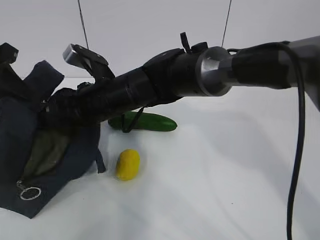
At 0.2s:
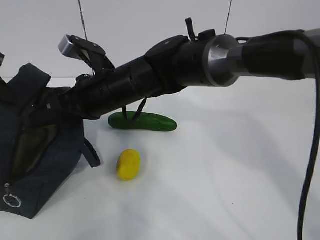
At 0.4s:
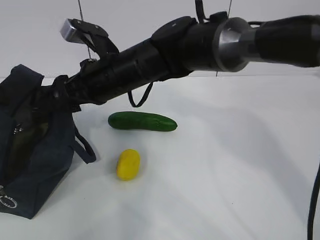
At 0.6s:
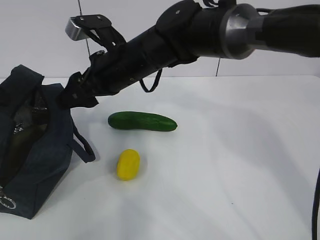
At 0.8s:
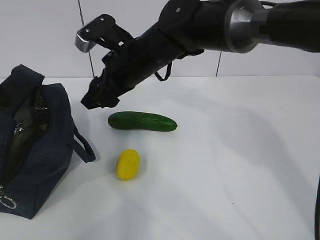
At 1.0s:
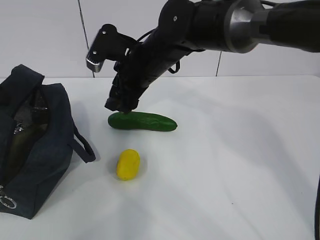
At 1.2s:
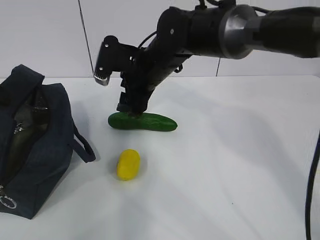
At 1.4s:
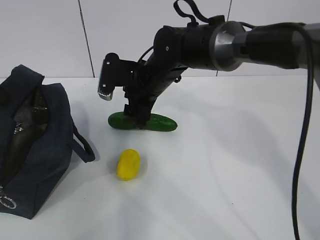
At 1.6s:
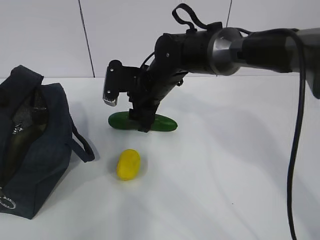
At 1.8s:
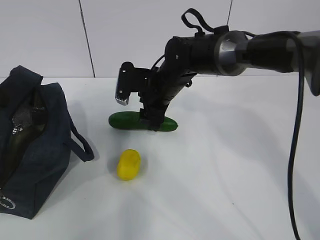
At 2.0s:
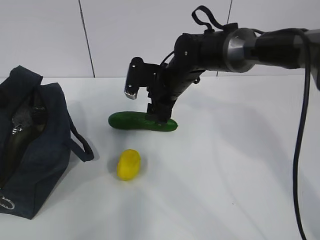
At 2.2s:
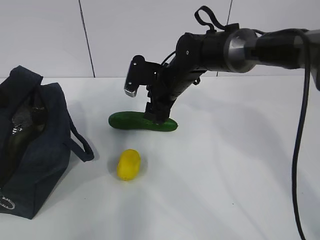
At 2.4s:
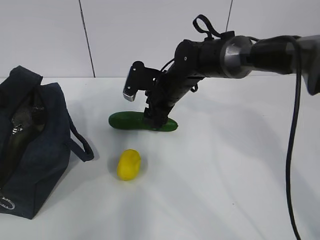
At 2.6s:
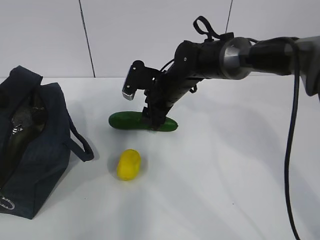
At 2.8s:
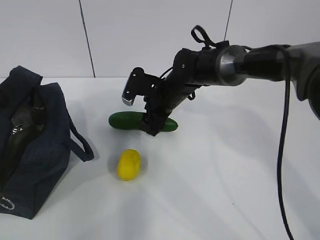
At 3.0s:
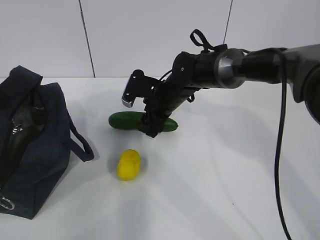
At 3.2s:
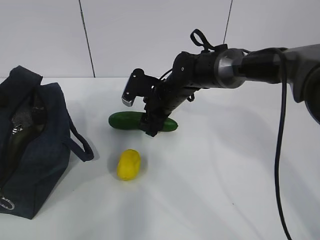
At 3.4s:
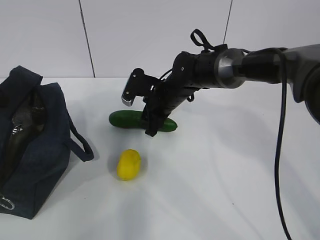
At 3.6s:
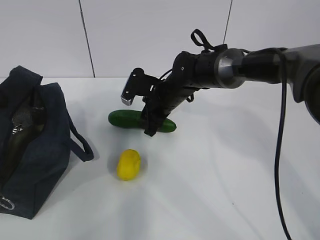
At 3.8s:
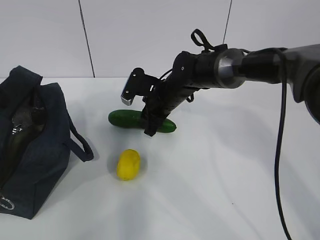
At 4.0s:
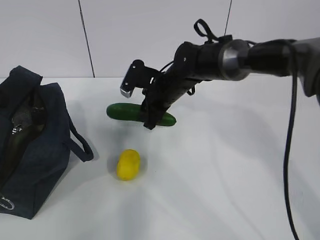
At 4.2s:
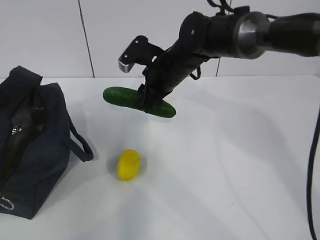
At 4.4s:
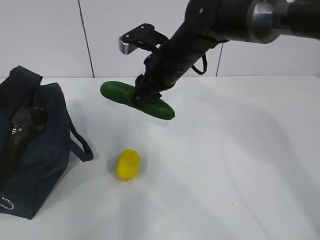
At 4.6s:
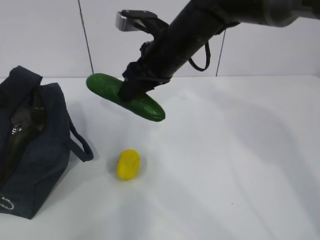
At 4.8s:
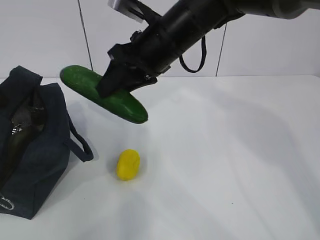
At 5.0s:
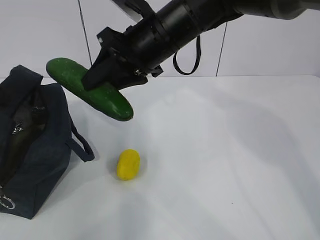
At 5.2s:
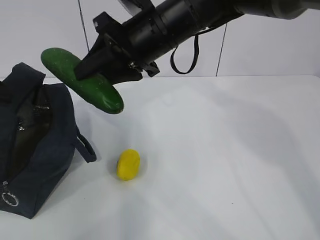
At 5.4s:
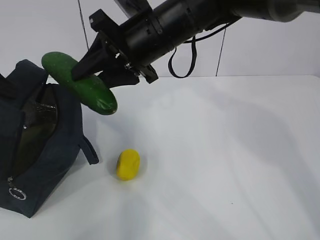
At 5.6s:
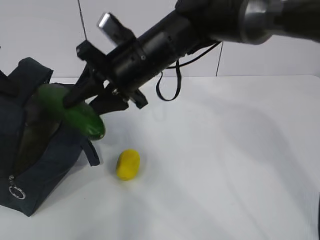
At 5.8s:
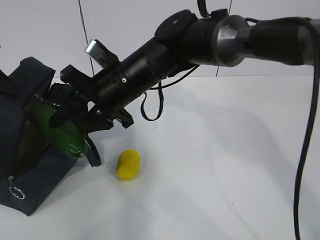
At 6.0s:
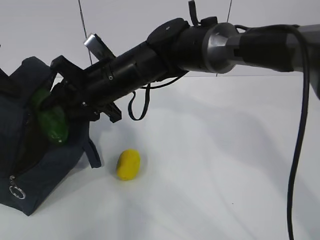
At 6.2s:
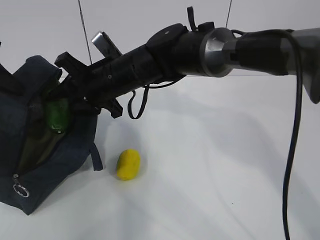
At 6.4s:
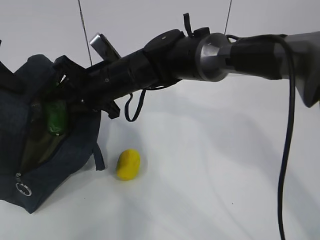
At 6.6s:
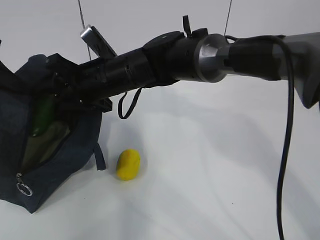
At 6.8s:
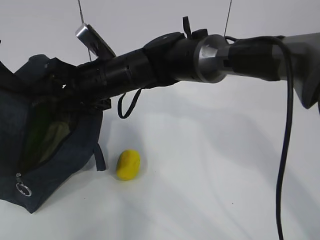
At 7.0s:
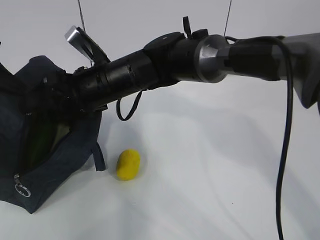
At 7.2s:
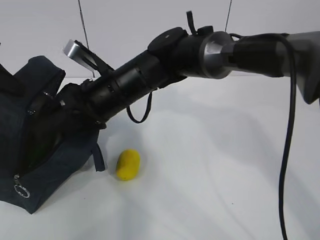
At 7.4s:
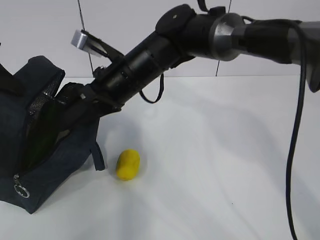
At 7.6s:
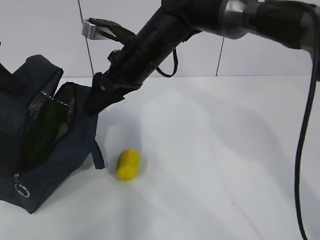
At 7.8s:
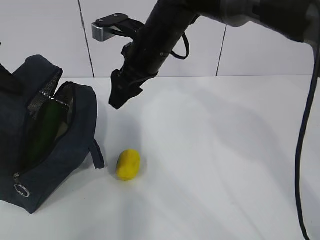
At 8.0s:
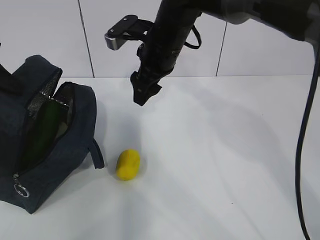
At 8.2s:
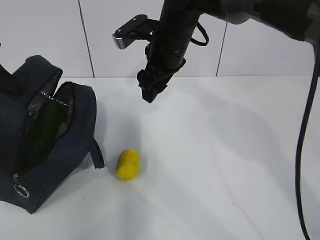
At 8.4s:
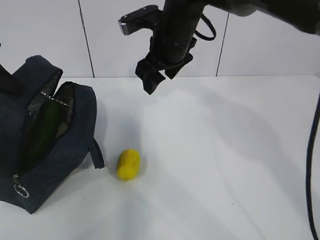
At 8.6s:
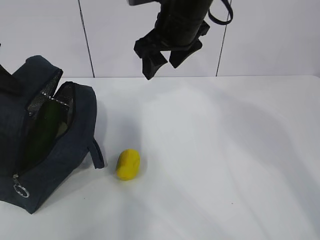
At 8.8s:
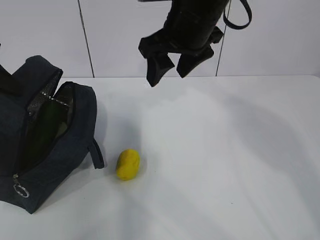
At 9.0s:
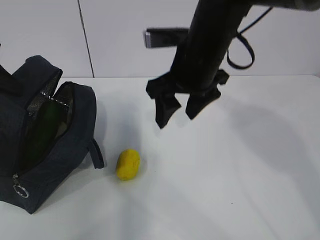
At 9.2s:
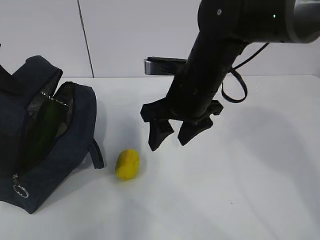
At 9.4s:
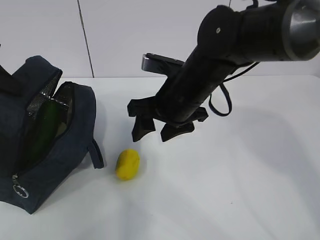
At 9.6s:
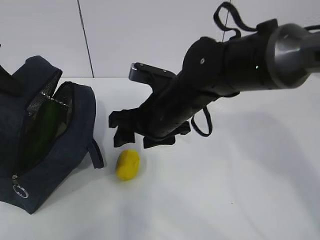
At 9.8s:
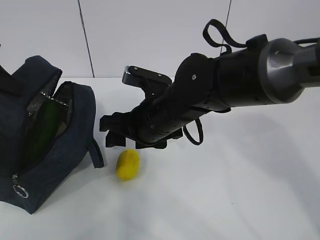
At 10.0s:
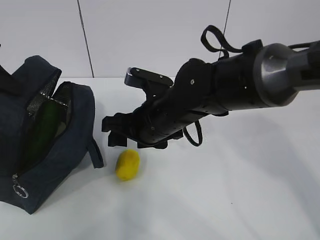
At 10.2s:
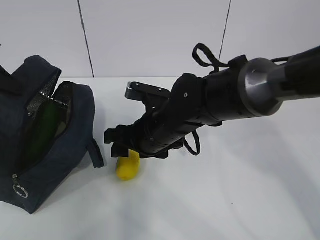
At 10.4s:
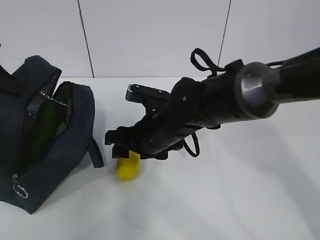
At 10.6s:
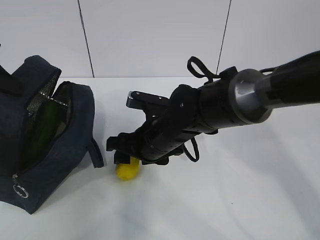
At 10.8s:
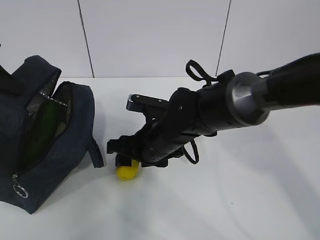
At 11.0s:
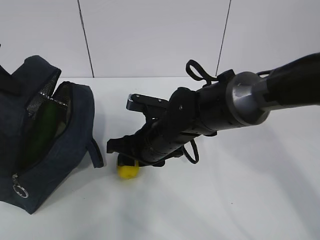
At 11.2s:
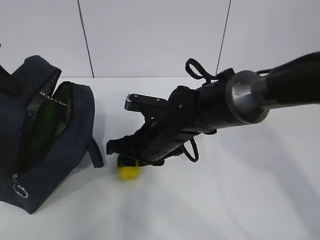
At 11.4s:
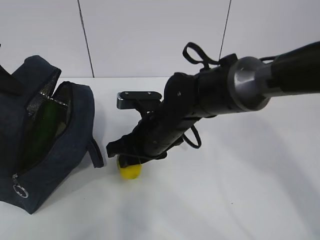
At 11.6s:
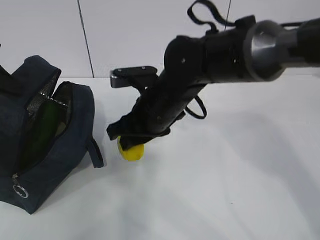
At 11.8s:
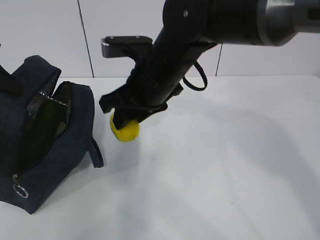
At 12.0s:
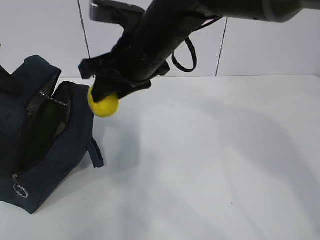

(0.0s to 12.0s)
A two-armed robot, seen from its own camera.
Step, 0.8s - 3.4s: Grasp the cucumber with the right gripper.
Step, 3.8s - 7.2s: Place the cucumber into the package with the right gripper.
Step, 7.4s - 11.0s: Grasp the lemon with the right gripper.
0.0s - 1.6s: The right gripper is displaced to the right and forward by about 10 cm.
1.6s - 3.0s: The right gripper is displaced downward by approximately 5 cm.
3.0s - 4.4s: The right gripper goes roughly 10 cm upward.
4.4s - 6.0s: The right gripper travels to the left by about 10 cm.
6.0s - 7.6s: The right gripper ends up some 5 cm from where it was, and opens.
7.6s - 9.0s: The right gripper is displaced to the right by about 5 cm.
9.0s - 10.4s: The right gripper is displaced downward and to the left by about 15 cm.
10.4s - 12.0s: The right gripper moves upward, about 15 cm.

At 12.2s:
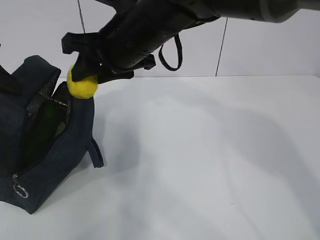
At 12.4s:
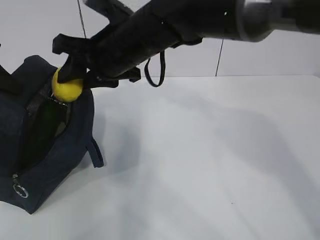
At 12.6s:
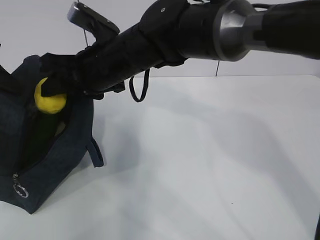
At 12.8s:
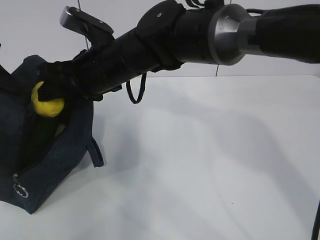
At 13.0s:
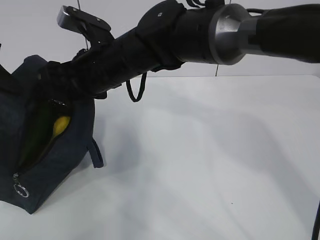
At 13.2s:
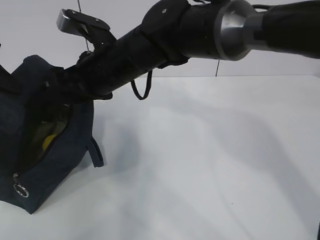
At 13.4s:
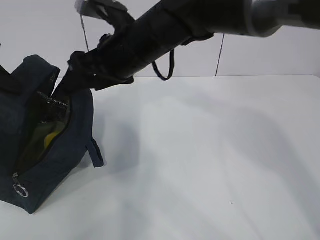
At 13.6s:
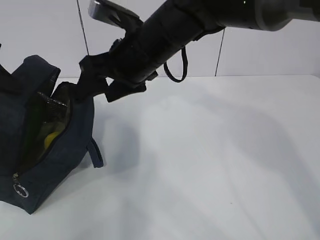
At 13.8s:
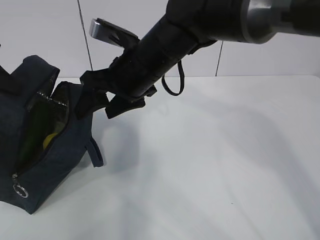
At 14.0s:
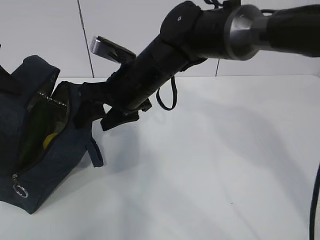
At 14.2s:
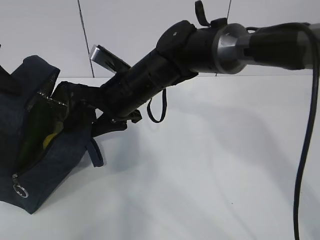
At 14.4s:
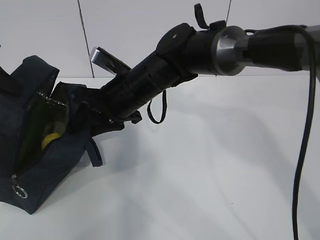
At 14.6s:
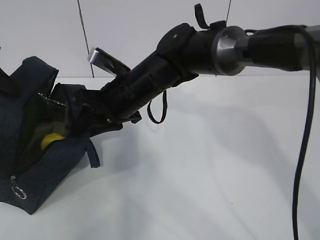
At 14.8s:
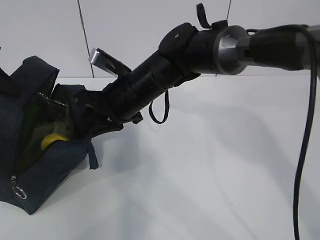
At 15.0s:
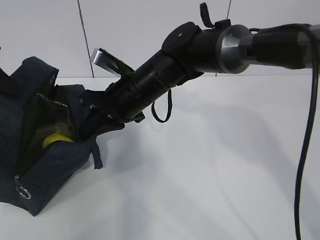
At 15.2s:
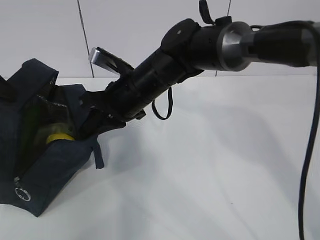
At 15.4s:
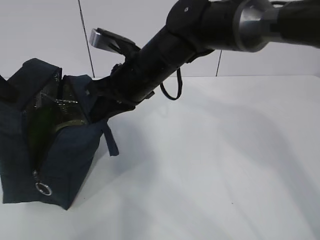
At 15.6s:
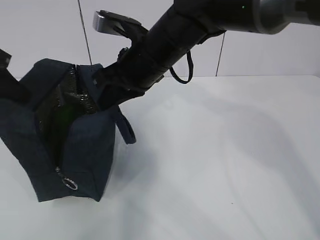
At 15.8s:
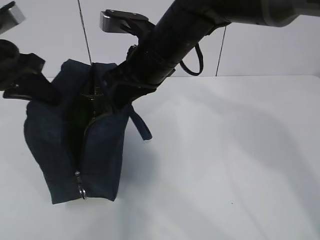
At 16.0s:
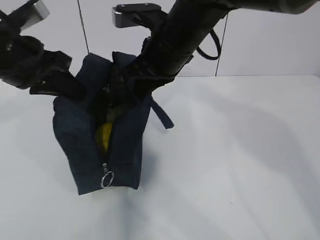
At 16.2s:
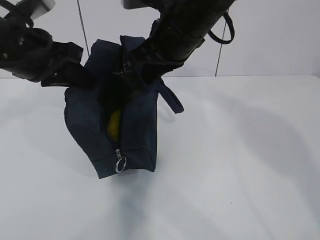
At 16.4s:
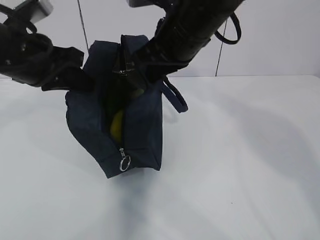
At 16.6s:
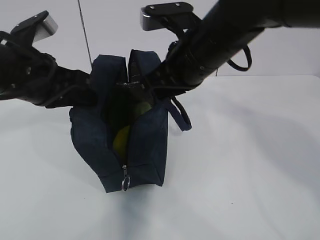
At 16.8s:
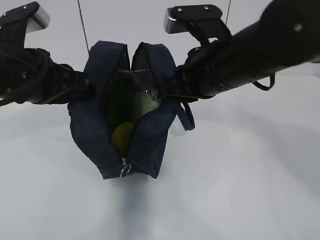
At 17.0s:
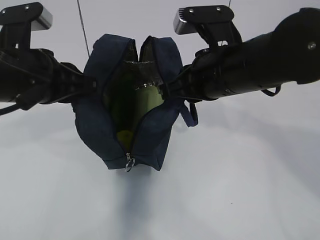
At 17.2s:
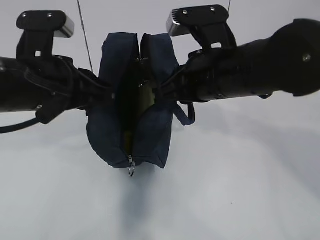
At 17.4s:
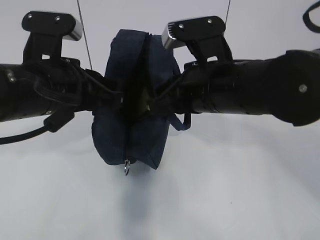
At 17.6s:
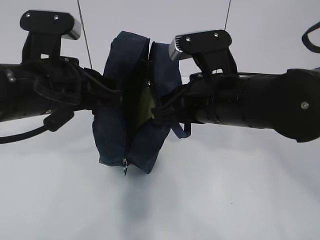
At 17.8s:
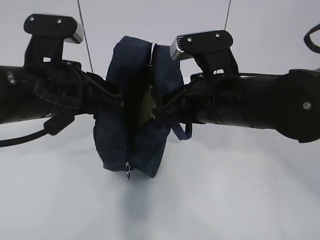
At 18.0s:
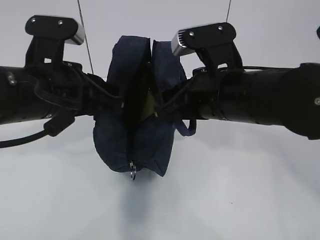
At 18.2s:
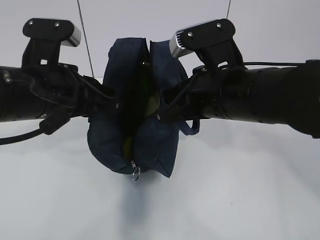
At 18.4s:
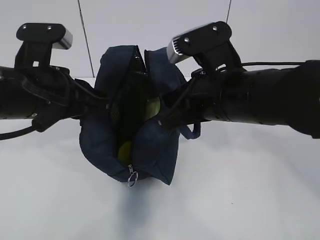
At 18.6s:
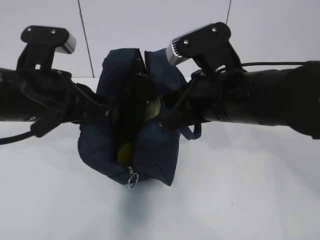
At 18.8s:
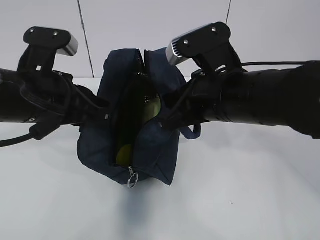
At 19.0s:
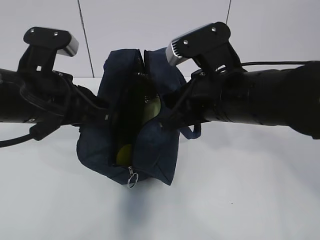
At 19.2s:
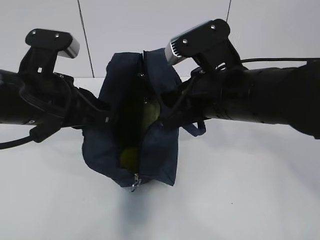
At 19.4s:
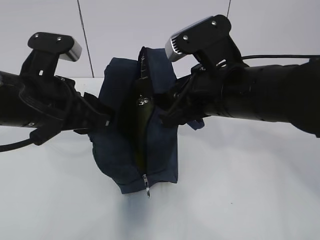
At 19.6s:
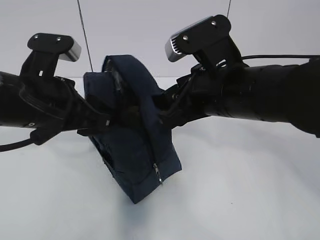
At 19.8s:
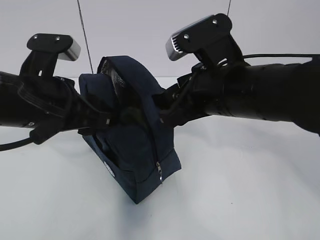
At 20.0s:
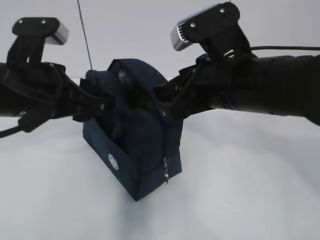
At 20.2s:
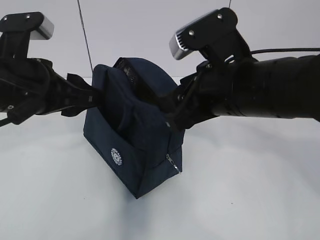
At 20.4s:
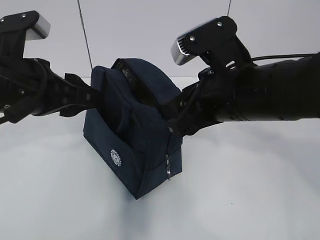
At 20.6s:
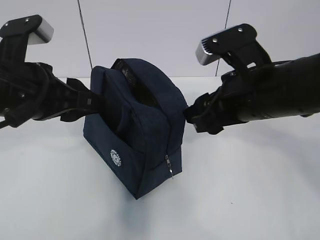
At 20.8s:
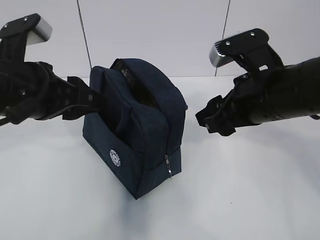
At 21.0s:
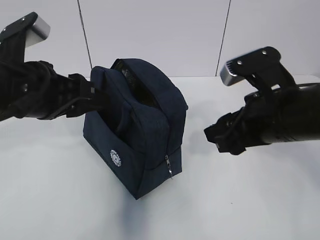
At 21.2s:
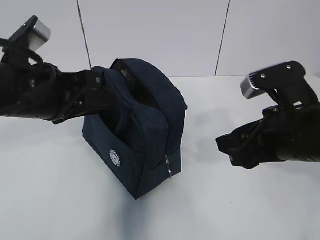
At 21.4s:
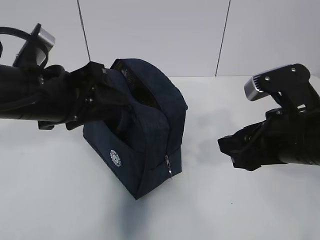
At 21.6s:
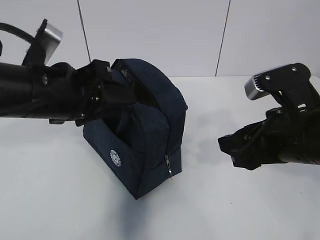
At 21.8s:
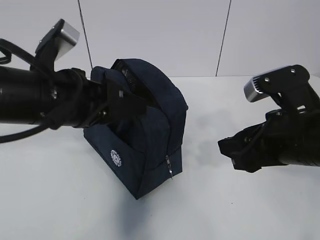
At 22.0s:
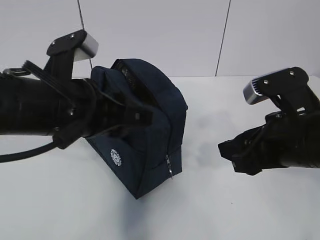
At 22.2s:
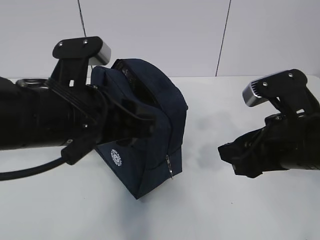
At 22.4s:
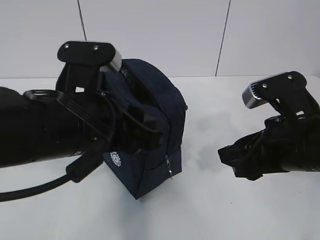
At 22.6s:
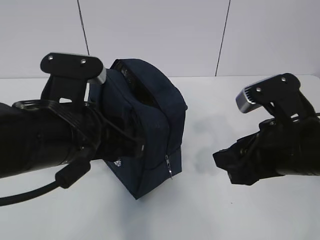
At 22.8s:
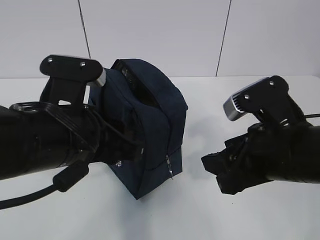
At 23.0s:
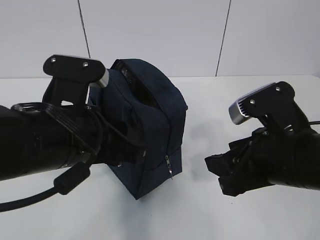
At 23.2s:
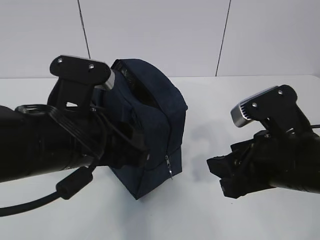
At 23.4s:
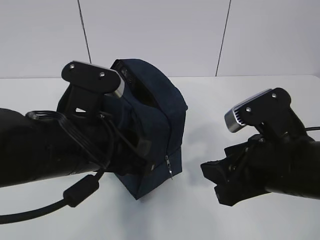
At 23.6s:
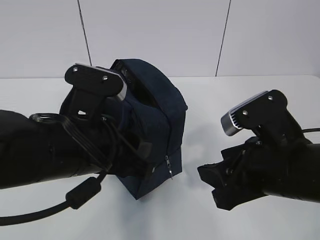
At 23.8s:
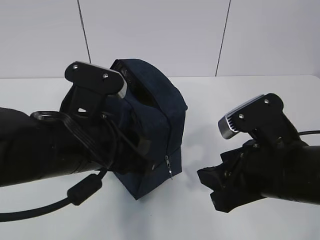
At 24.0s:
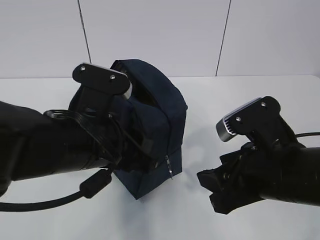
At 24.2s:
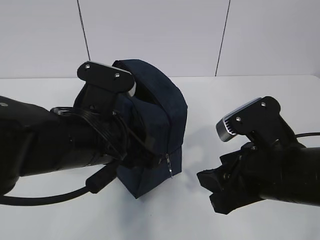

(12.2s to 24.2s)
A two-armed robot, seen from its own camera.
12.2s - 13.8s: The right gripper opens up.
13.8s - 15.2s: The right gripper changes place by some 5 cm, and closes up.
15.2s - 16.6s: The left gripper travels to the right by approximately 15 cm. The right gripper shifts approximately 10 cm to the right and upward.
16.6s - 18.2s: The left gripper ends up about 5 cm from where it was. The right gripper goes approximately 5 cm backward.
18.2s - 19.8s: The right gripper opens its fingers. The left gripper opens.
19.8s - 21.2s: The right gripper is displaced to the right by approximately 10 cm.
21.2s - 22.6s: The left gripper is displaced to the right and backward by approximately 10 cm.
22.6s - 24.2s: The grippers stay close to where they were, moving slightly.
